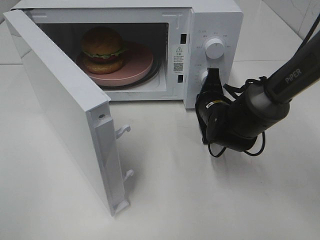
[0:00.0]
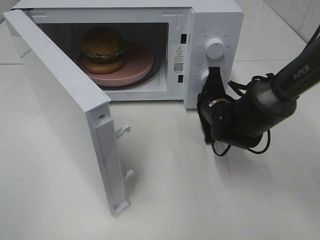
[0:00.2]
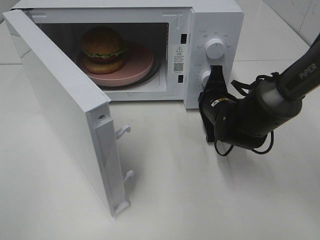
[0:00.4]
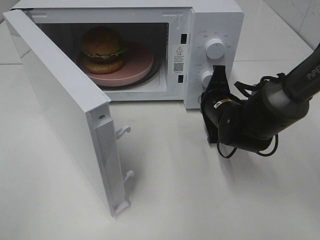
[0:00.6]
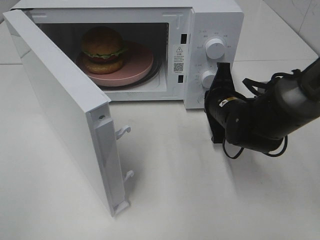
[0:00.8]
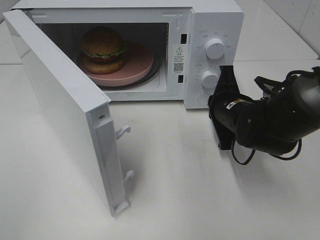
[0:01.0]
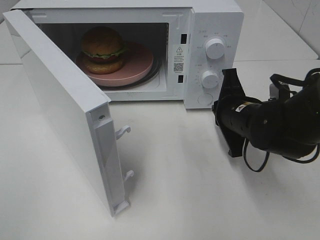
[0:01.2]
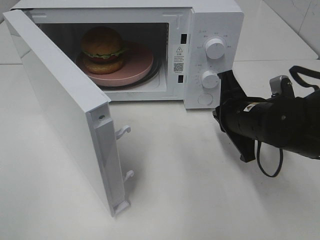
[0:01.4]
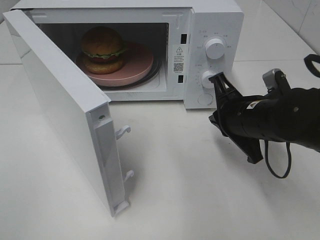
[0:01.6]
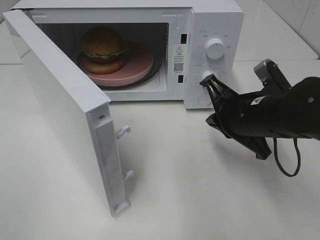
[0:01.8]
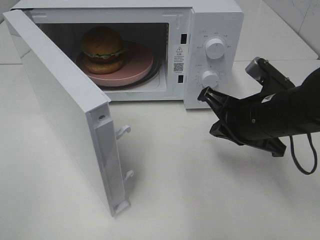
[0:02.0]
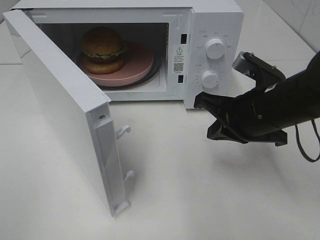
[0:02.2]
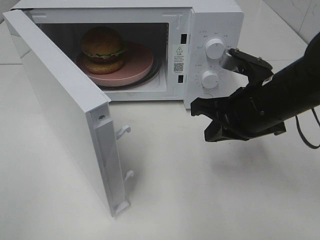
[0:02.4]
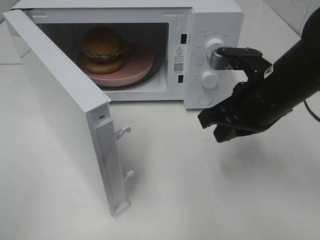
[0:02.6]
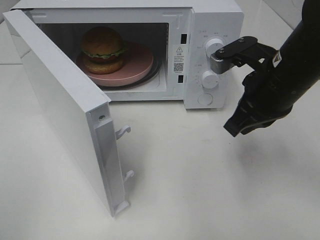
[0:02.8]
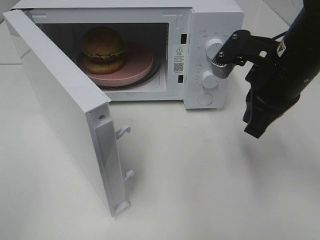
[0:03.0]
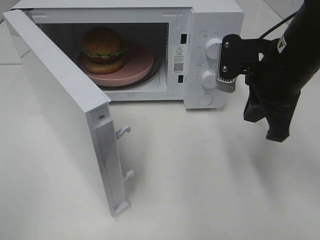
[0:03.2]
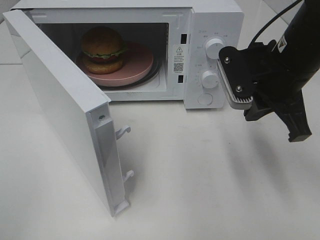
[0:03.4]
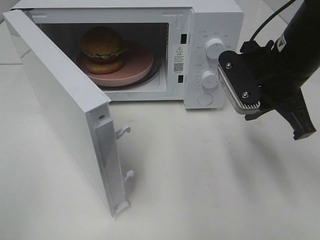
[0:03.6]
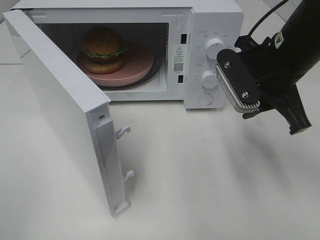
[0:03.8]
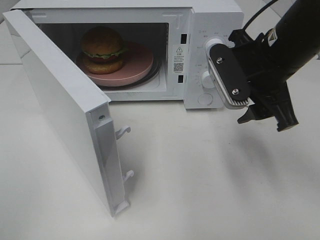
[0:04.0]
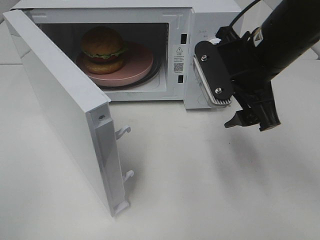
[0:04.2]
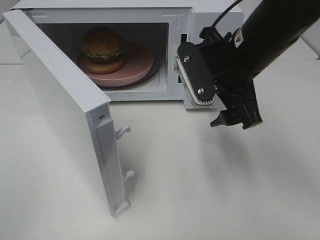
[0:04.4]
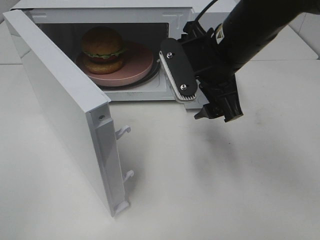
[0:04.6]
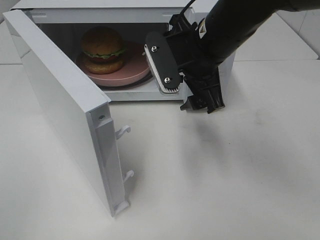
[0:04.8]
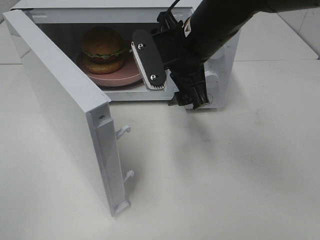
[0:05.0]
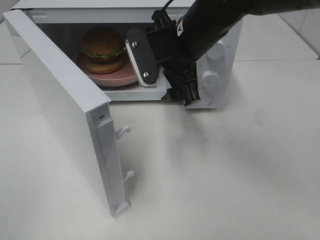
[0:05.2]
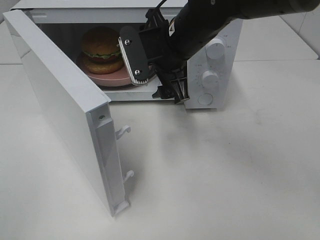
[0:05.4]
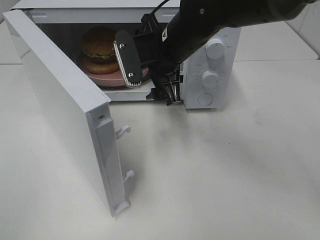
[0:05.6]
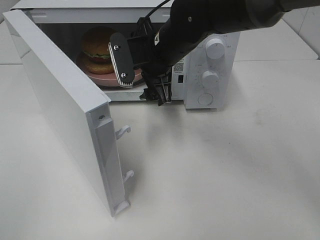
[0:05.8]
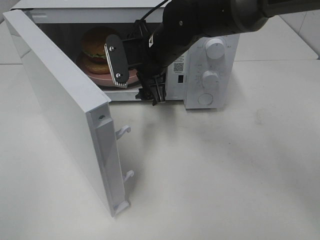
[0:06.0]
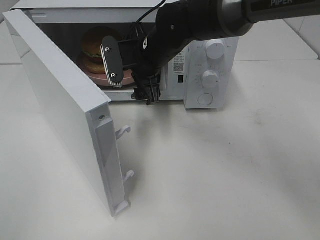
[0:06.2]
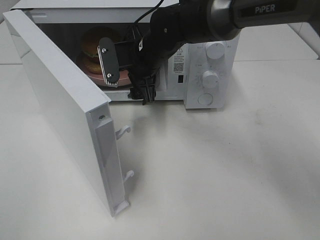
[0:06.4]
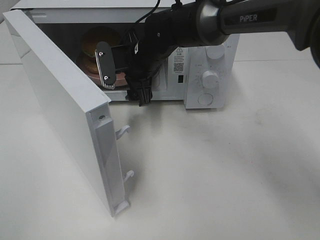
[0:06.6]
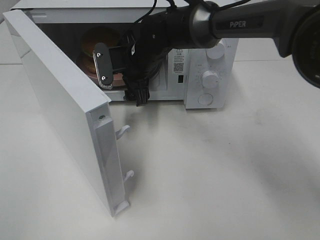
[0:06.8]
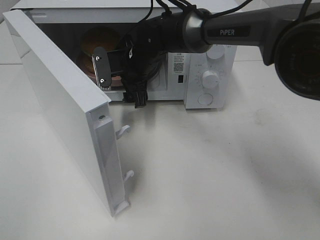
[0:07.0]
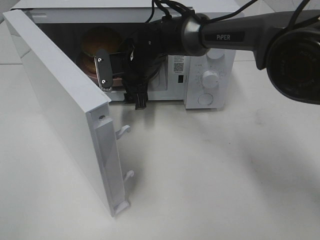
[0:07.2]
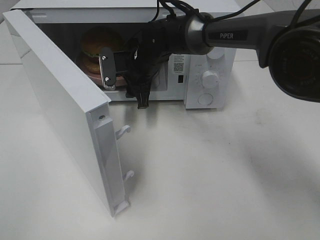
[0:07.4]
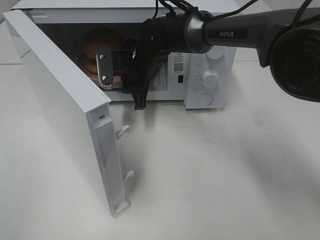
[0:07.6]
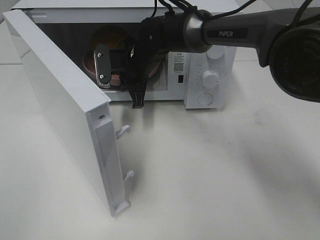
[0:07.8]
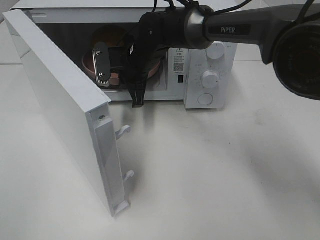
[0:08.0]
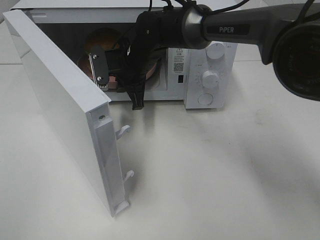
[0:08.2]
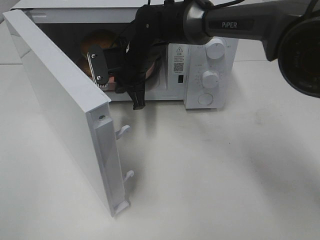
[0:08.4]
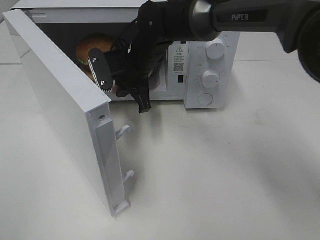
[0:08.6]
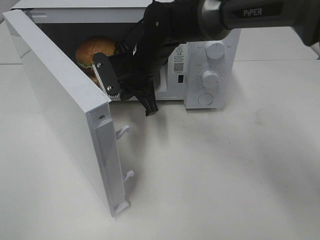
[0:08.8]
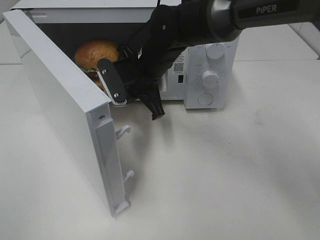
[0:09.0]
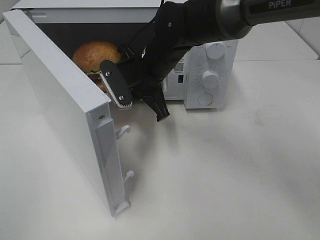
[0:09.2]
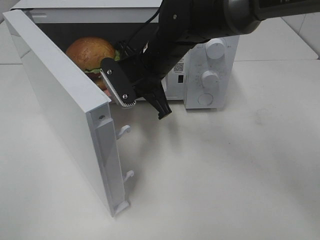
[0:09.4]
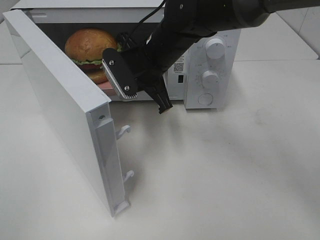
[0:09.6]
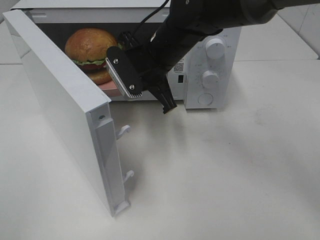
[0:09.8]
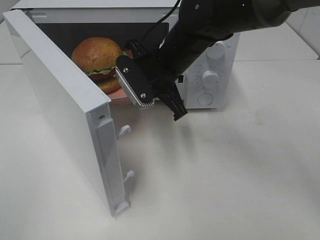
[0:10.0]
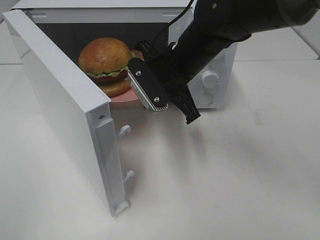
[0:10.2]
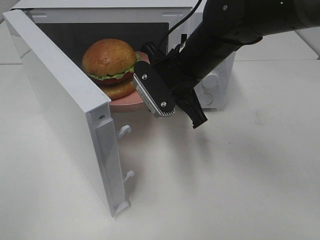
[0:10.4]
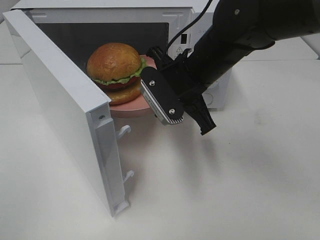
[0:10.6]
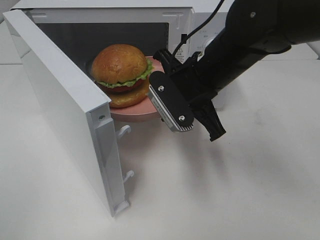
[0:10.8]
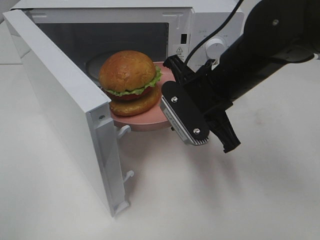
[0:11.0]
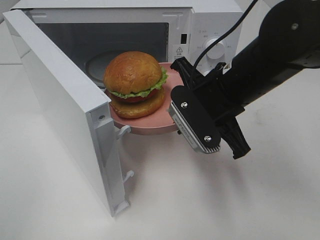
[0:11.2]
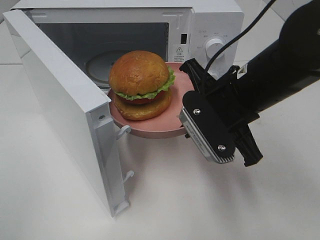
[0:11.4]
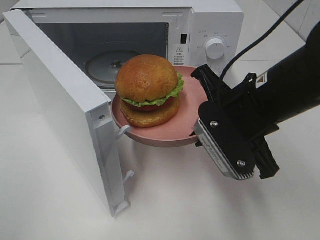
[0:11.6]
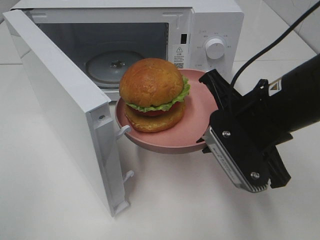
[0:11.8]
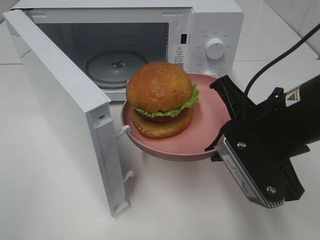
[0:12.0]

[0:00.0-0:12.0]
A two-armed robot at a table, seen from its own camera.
Task of the whole recording: Heat the burger.
Step, 0:00.8 to 0:07.6: Right hand: grab the plate with the hamburger.
0:00.0 to 0:01.6: The right gripper shifts roughly 10 cm backward and upward.
0:01.6 to 0:03.0: The right gripper goes about 10 cm upward.
0:03.0 to 0:04.4: The right gripper goes roughly 5 cm to the left, and opens its fingers.
0:04.4 to 0:06.0: The right gripper goes some 15 cm to the left and forward.
0:06.0 to 0:07.6: The right gripper shifts approximately 10 cm forward and downward, and closes up.
0:07.6 to 0:09.0: The right gripper is displaced backward by some 5 cm.
0:09.0 to 0:10.4: The right gripper travels to the right and backward by some 10 cm.
0:10.4 to 0:12.0: The right gripper moves backward and to the right, about 15 cm.

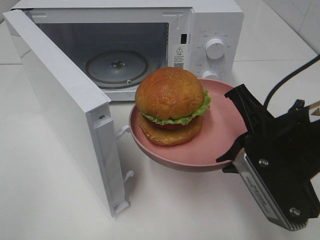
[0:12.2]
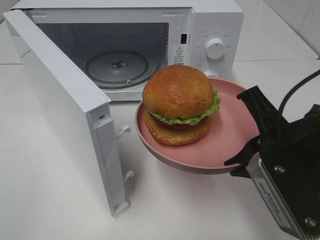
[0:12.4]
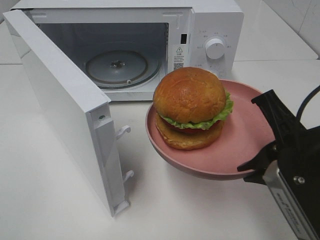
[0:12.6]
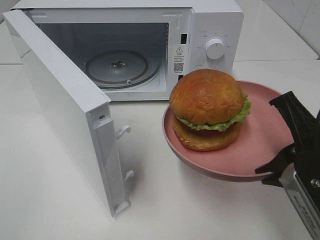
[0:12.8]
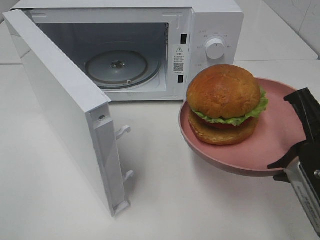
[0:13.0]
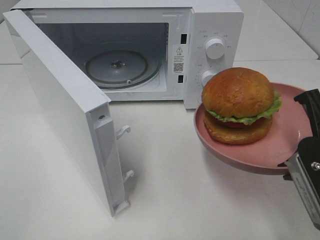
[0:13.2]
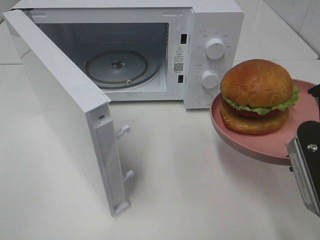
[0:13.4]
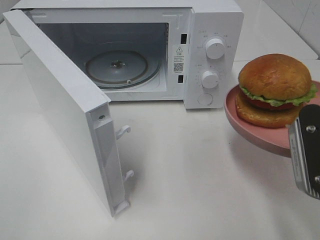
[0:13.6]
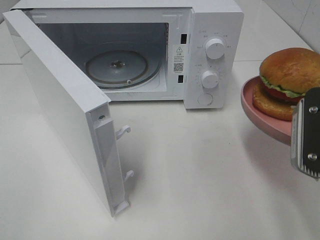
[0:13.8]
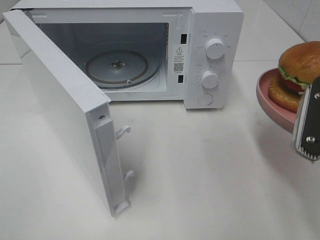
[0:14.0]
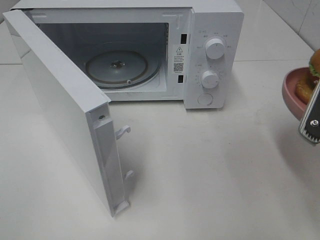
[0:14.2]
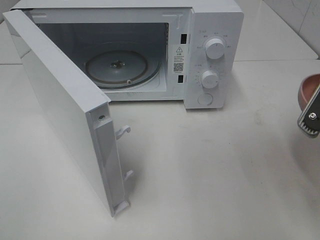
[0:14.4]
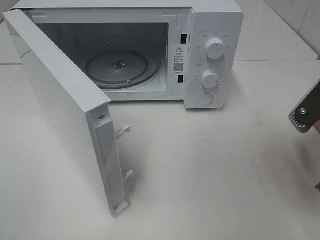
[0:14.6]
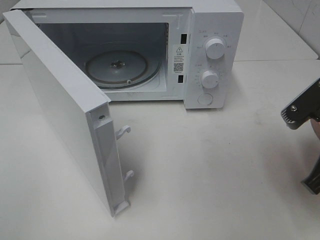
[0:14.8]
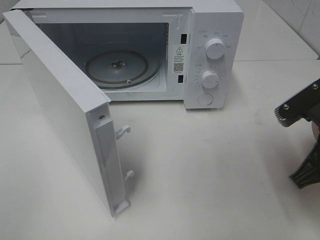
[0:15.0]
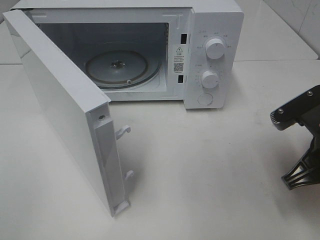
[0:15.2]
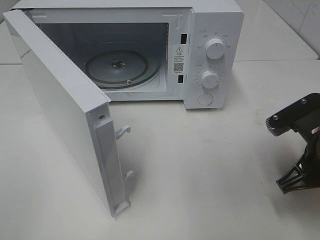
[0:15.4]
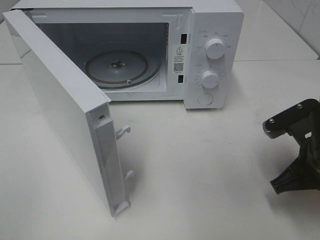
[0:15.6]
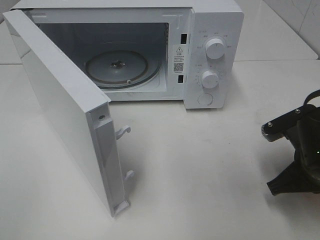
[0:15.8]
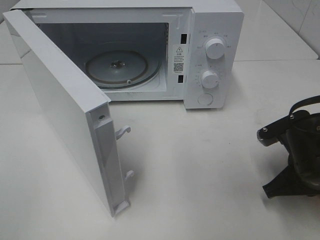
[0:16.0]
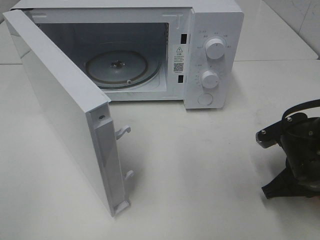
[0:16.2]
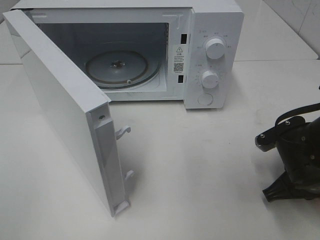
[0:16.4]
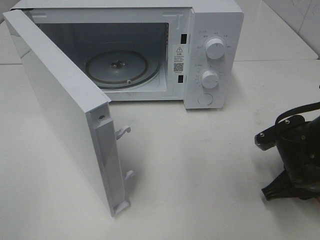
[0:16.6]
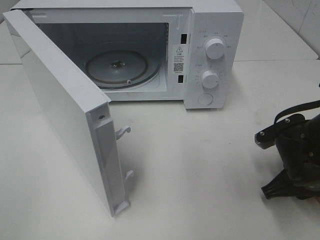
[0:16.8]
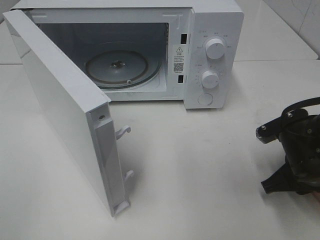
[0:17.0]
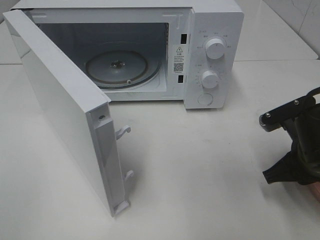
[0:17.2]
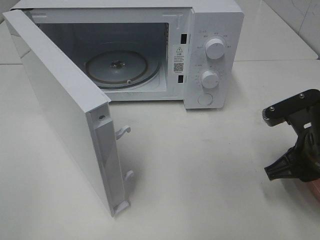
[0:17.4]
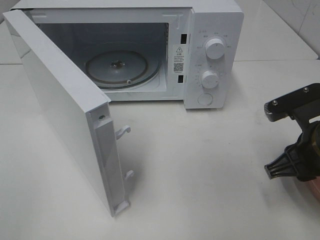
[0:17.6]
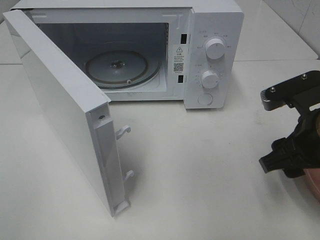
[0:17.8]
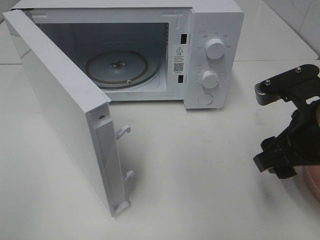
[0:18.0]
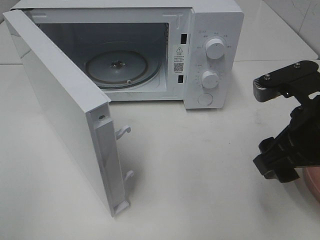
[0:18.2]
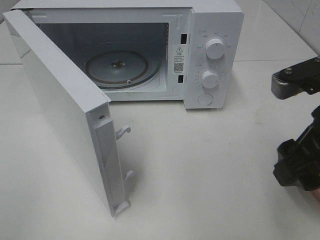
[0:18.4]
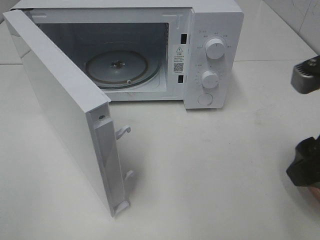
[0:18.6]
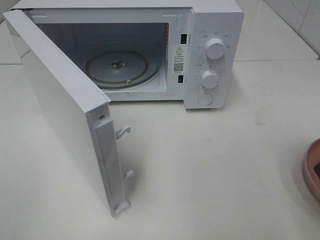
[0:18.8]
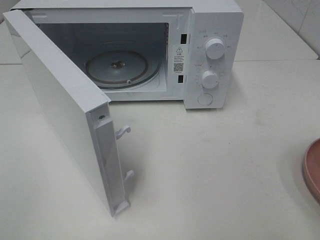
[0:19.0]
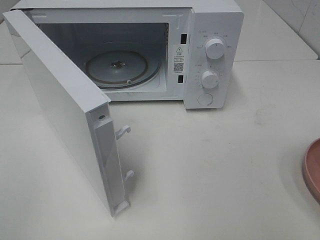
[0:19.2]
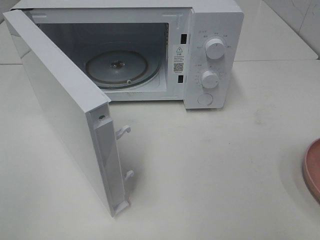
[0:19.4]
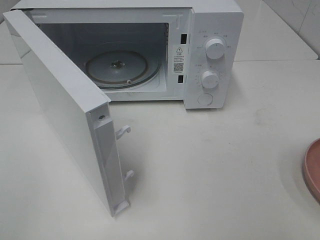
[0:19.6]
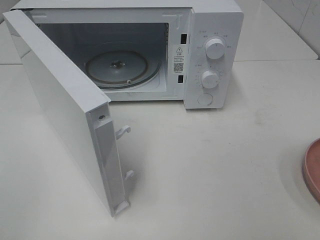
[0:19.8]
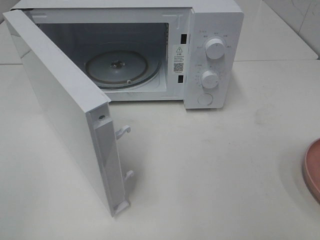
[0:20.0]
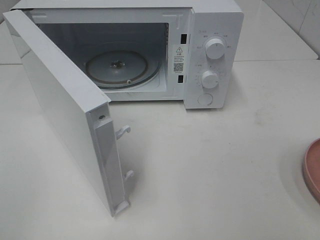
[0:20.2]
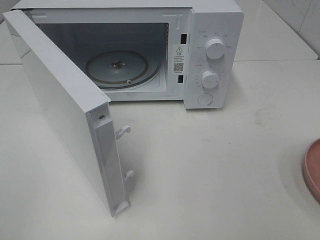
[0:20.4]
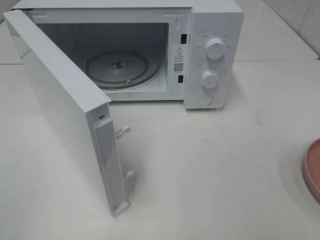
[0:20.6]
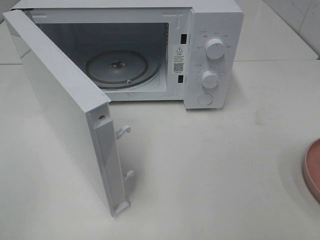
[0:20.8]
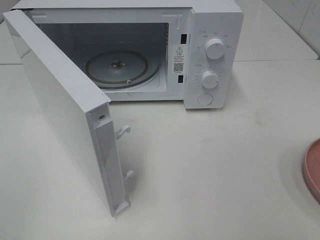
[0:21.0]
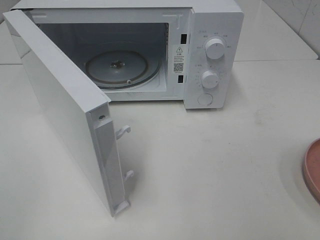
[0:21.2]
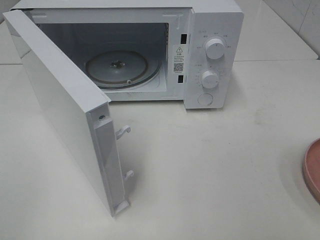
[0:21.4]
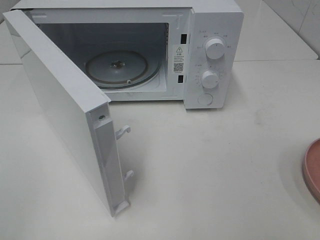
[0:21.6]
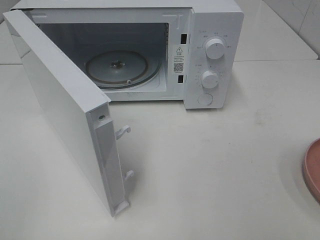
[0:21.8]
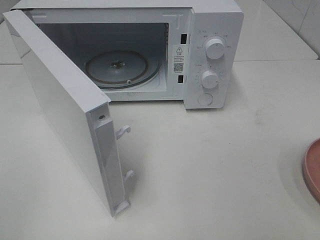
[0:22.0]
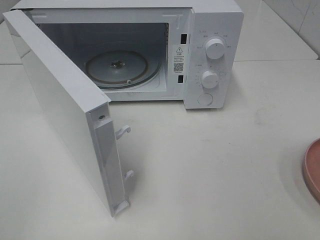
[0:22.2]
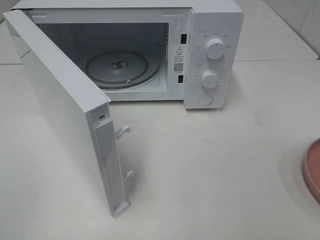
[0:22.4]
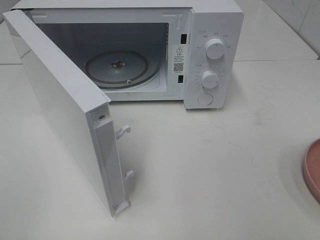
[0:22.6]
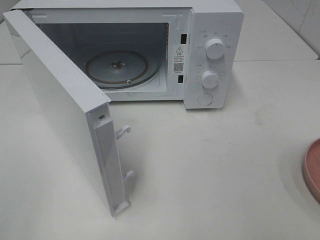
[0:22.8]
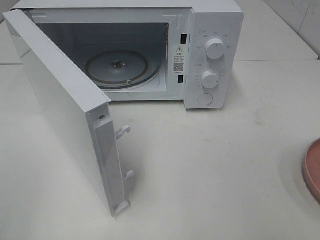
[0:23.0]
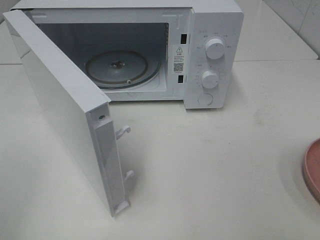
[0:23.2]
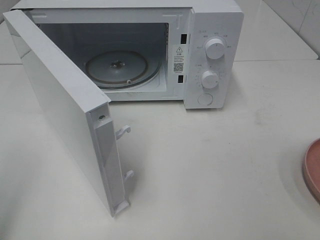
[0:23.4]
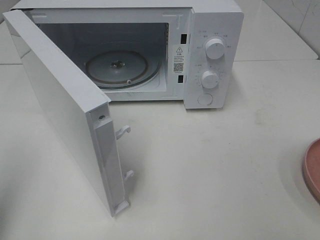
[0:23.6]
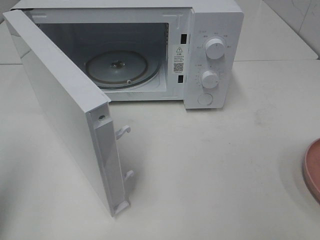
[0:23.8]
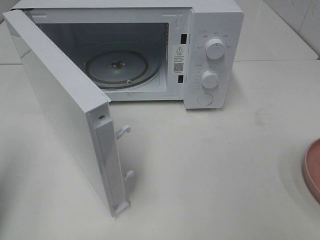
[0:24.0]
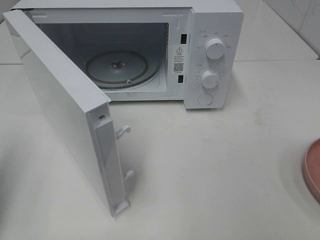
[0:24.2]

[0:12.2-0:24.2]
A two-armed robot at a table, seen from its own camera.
Task of the whole recording: Heat the burger.
Step, 0:12.2 to 0:17.2: Right hand: place the plate on the table.
0:12.2 to 0:13.8: The right gripper heads to the right, covering approximately 5 cm.
0:13.8 to 0:15.2: The right gripper travels downward by about 5 cm.
0:15.2 to 0:16.6: The right gripper is displaced downward by roughly 10 cm.
0:16.6 to 0:18.2: The right gripper heads upward, covering approximately 15 cm, and opens.
0:18.2 to 0:19.8: The right gripper travels backward, to the right and upward by about 20 cm.
0:21.2 to 0:22.6: Both grippers stay put.
0:22.6 to 0:24.2: The left gripper moves forward, about 15 cm, and closes its fingers.
